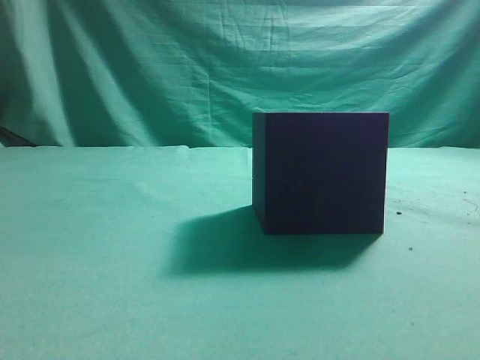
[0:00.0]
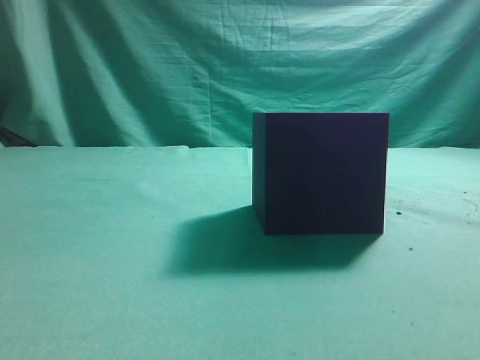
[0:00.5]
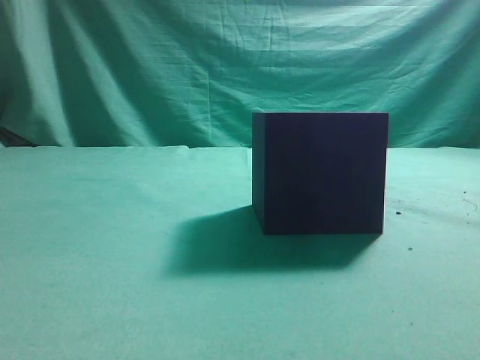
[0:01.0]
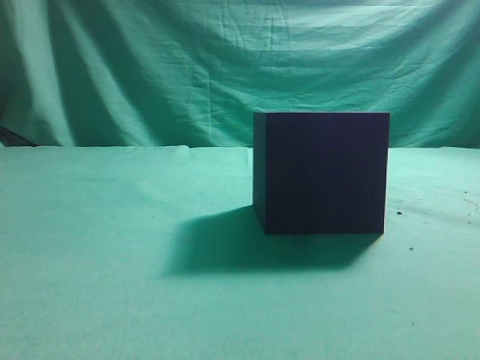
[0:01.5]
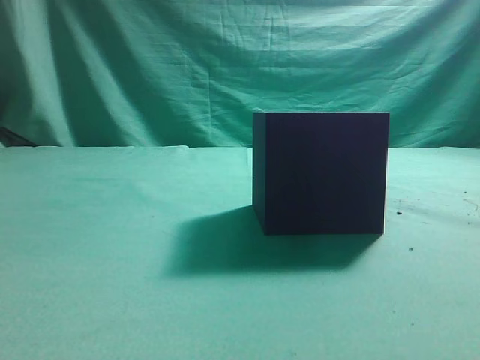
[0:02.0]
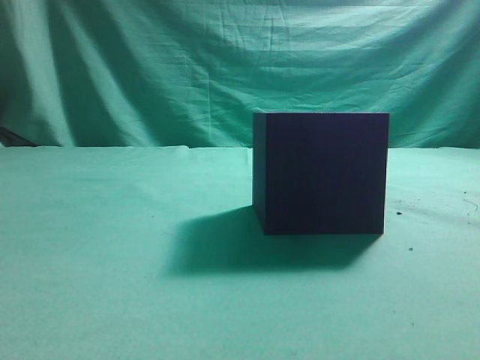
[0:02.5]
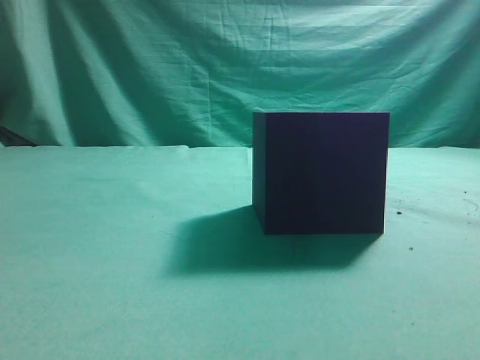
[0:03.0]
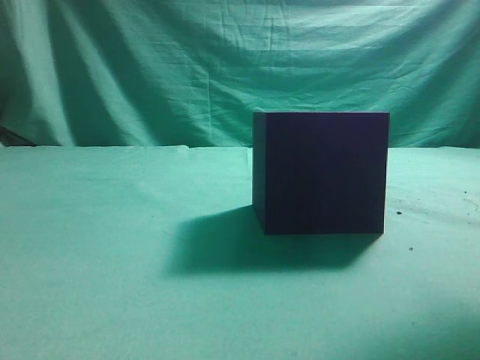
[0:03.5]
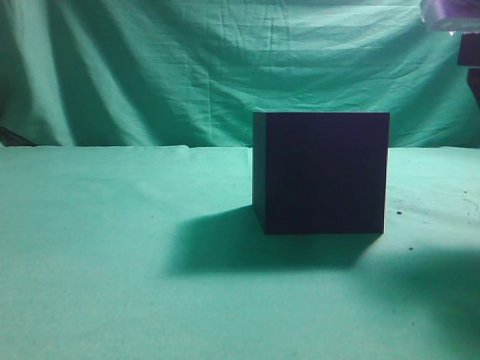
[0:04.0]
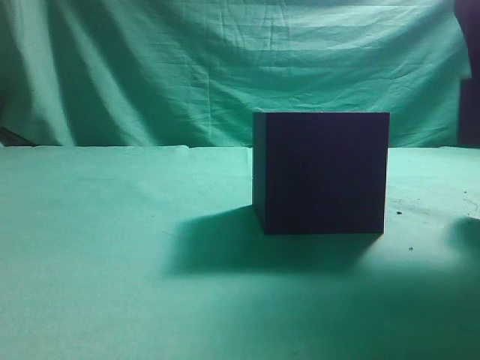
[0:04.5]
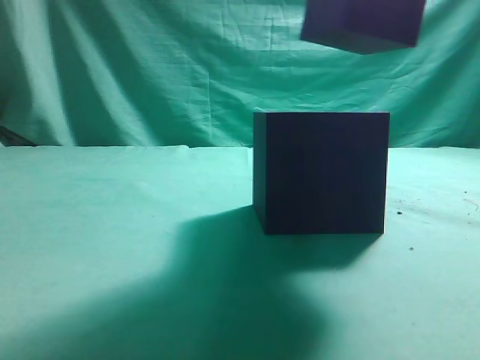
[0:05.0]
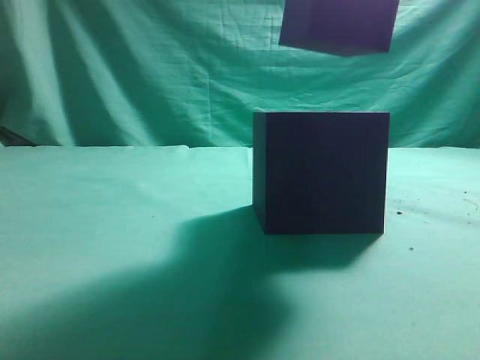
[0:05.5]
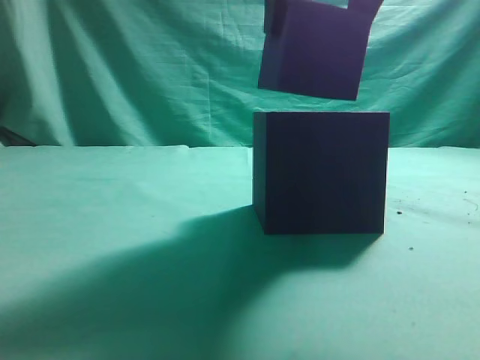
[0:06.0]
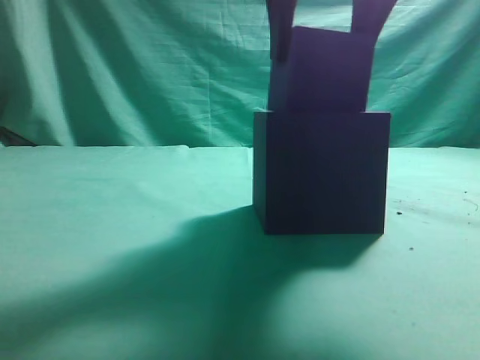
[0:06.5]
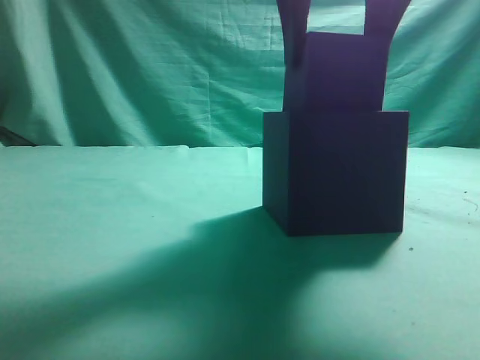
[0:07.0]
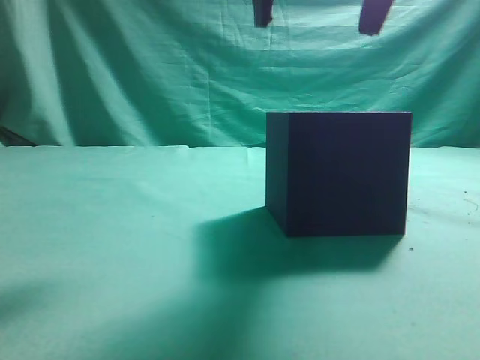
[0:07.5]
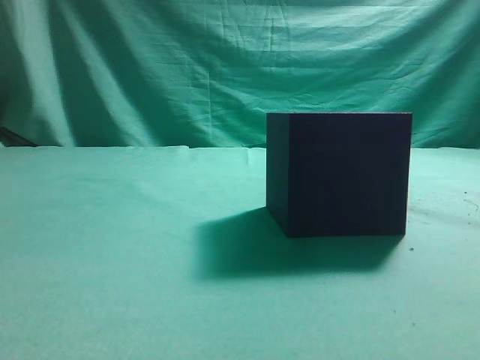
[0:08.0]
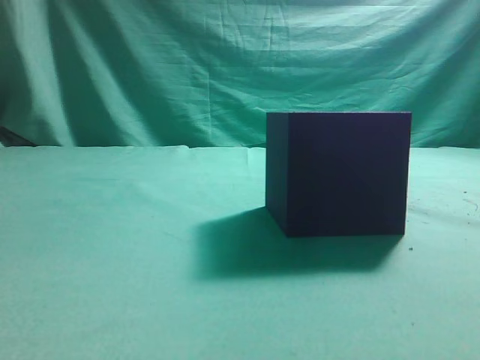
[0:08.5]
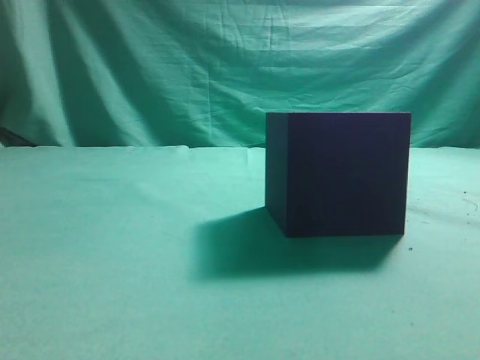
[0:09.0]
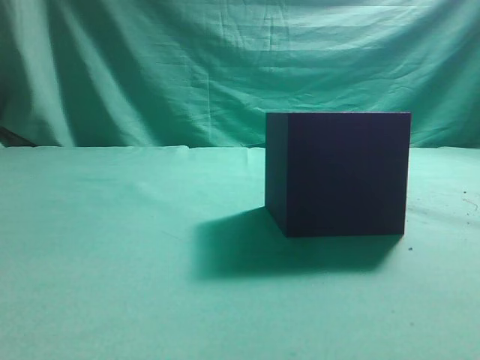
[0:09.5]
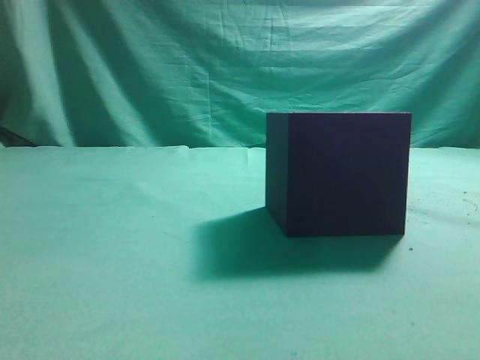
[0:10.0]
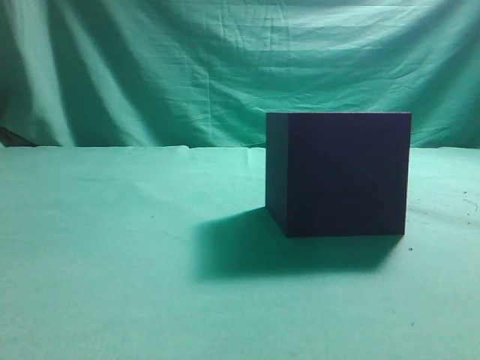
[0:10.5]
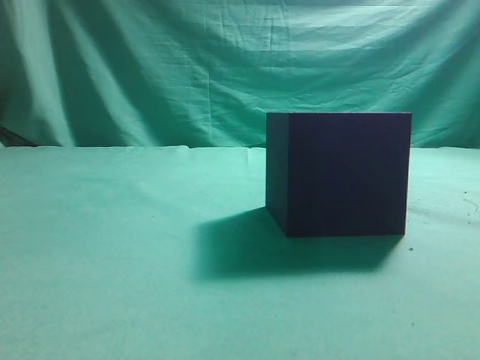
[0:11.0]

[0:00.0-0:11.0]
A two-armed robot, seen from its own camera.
Task of the whole recording: pick up the cube block and place it into the cube groove.
Step, 0:00.0 to 0:04.0: Grasp the cube.
Step, 0:04.5 to 0:07.0: Place cube into the cube-shaped recess.
0:02.0 to 0:03.5: The right gripper shifts roughly 15 cm forward and to the left, and opens up.
0:03.5 to 0:05.5: The right gripper goes about 15 cm to the left and upward.
0:07.5 to 0:09.0: The right gripper goes roughly 30 cm backward and to the right, and closes its fingers.
